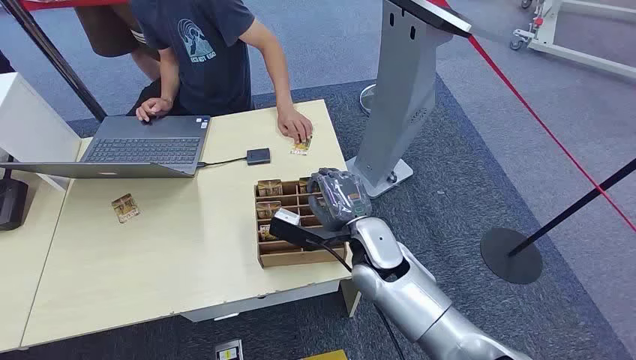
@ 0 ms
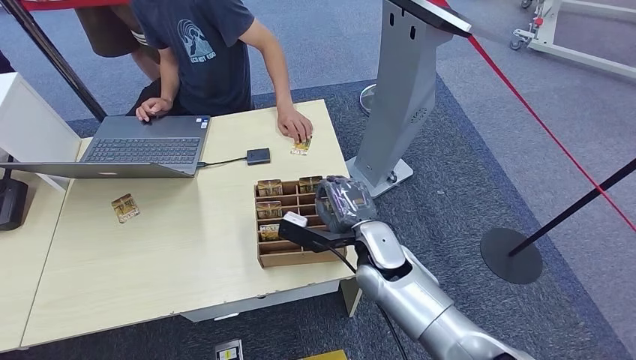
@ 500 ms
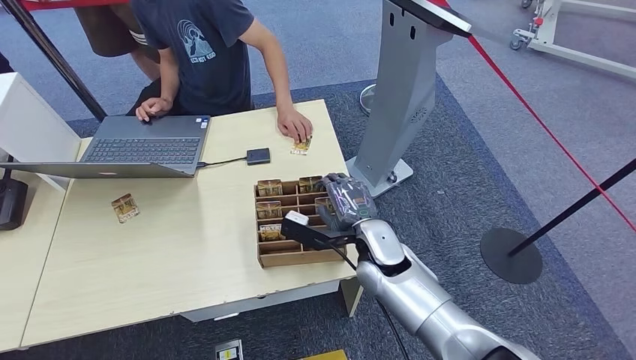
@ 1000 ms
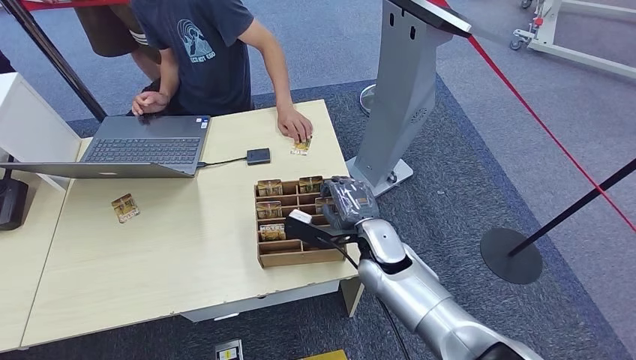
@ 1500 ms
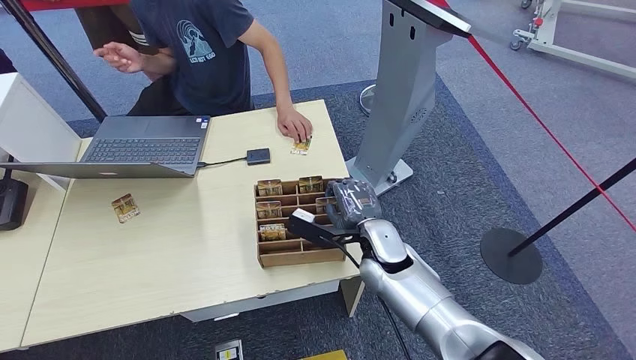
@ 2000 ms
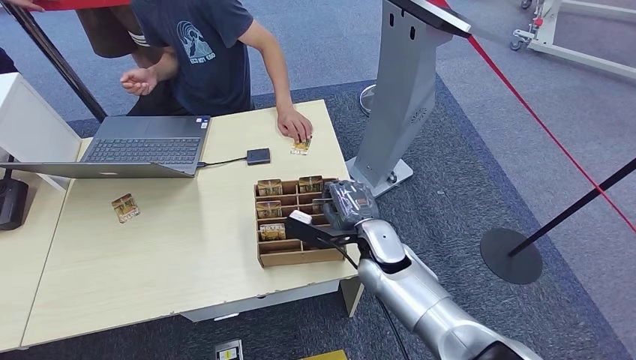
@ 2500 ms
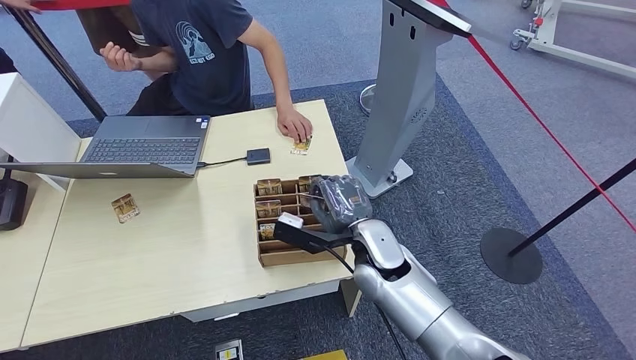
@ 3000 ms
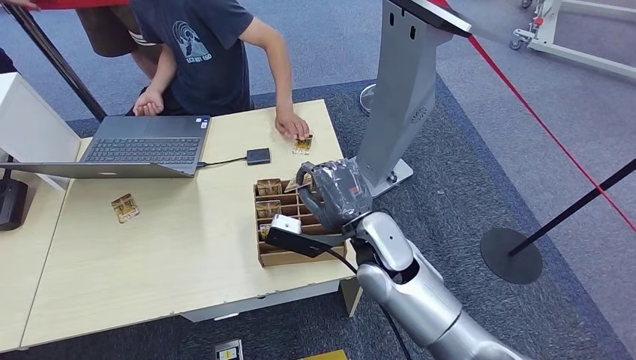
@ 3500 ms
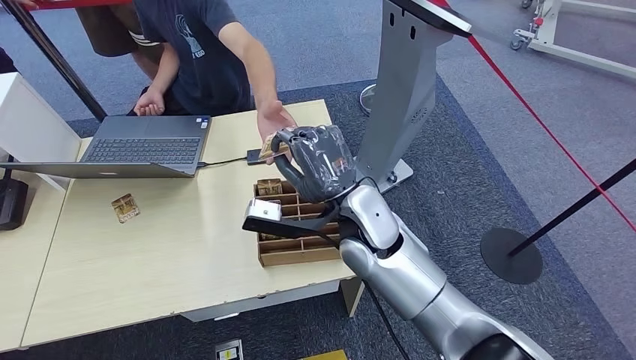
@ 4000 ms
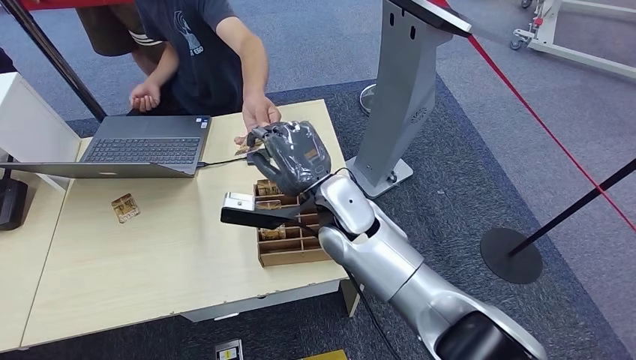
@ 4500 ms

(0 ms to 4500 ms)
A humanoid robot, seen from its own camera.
Step, 0 ms - 3000 ms: Pick up the key card from the card box.
Step, 4000 ms - 4500 ms: Hand the key card to the target.
2000 ms - 4500 ms: The right hand moves upward and to the left, some 15 cm.
